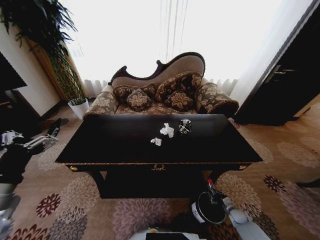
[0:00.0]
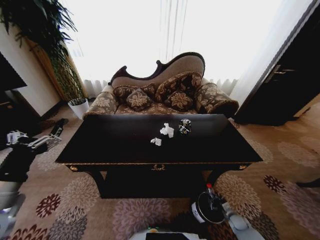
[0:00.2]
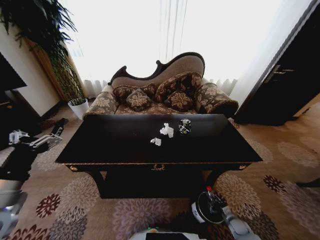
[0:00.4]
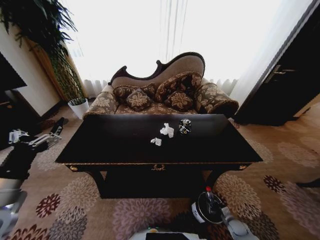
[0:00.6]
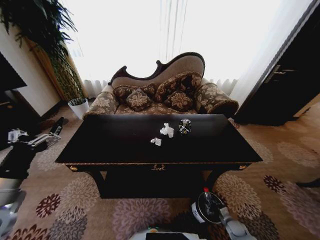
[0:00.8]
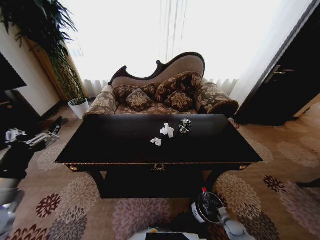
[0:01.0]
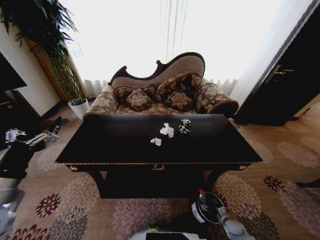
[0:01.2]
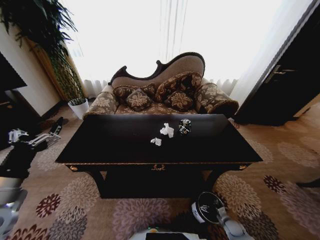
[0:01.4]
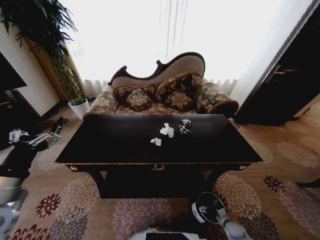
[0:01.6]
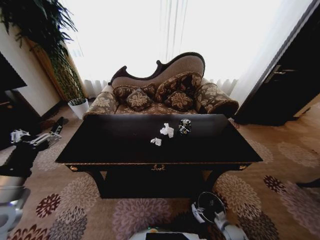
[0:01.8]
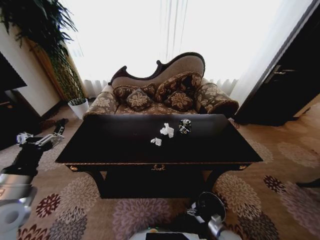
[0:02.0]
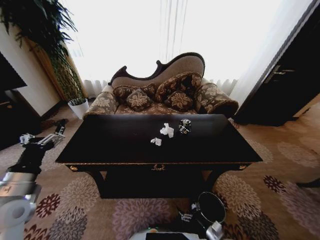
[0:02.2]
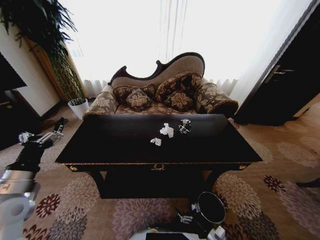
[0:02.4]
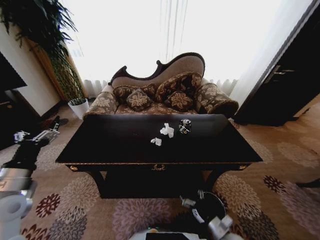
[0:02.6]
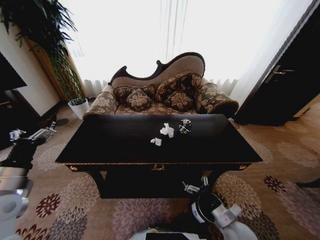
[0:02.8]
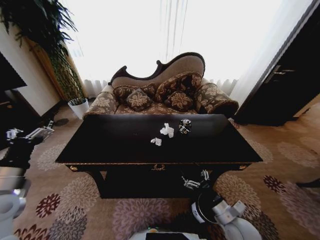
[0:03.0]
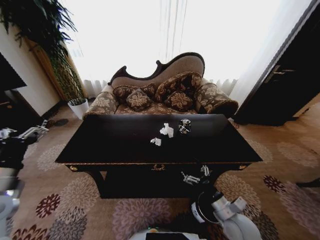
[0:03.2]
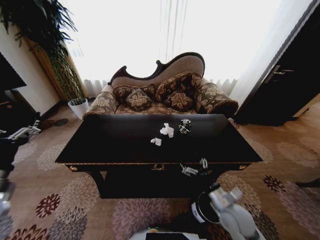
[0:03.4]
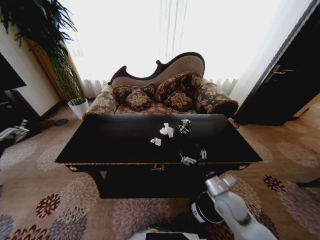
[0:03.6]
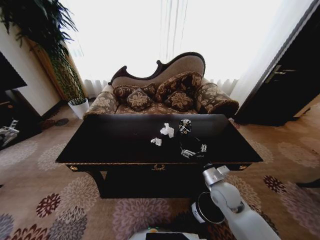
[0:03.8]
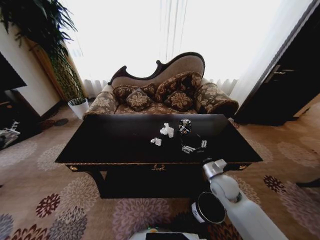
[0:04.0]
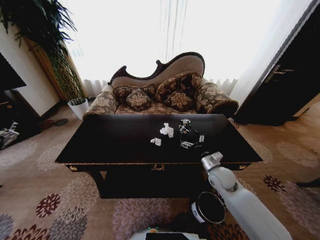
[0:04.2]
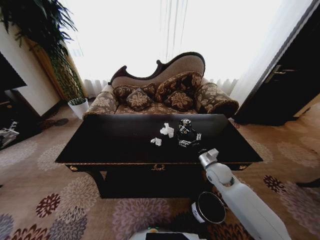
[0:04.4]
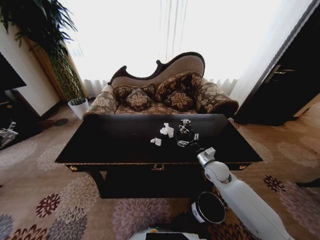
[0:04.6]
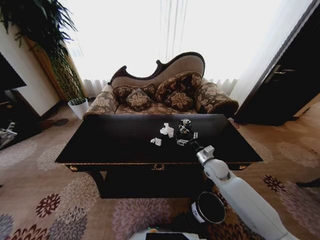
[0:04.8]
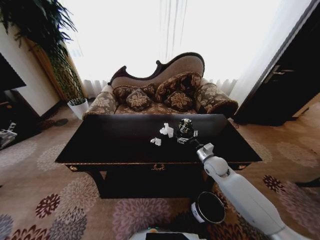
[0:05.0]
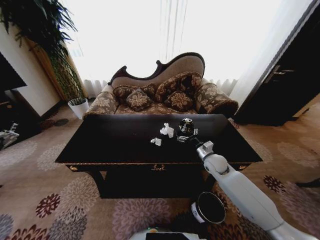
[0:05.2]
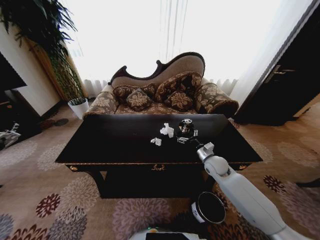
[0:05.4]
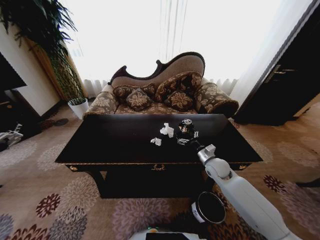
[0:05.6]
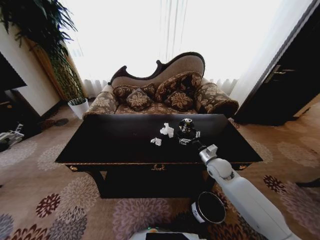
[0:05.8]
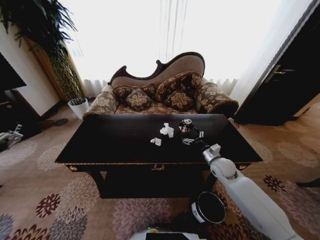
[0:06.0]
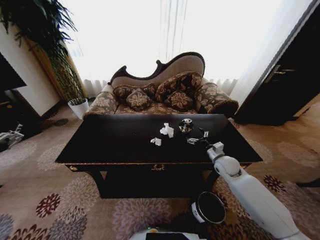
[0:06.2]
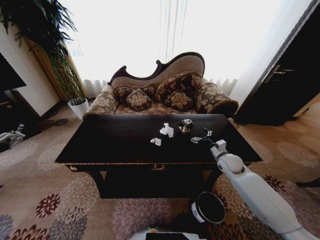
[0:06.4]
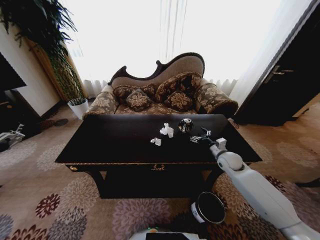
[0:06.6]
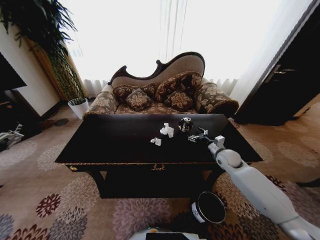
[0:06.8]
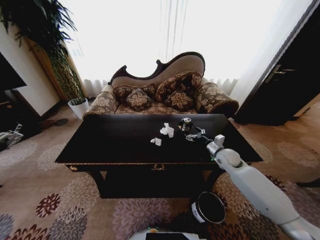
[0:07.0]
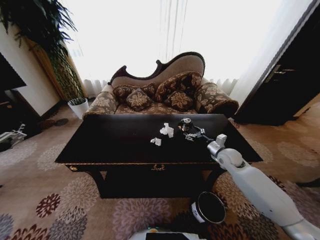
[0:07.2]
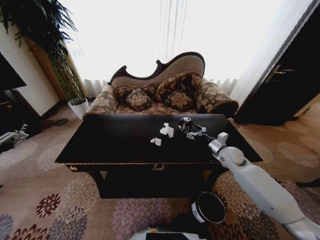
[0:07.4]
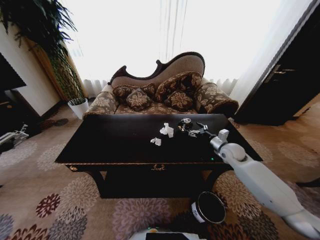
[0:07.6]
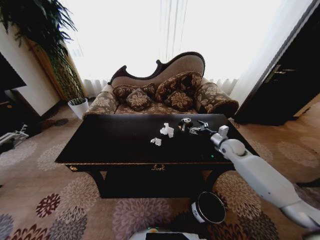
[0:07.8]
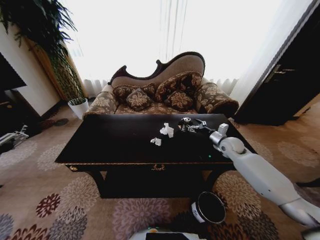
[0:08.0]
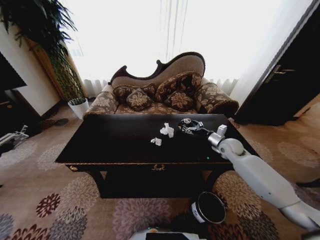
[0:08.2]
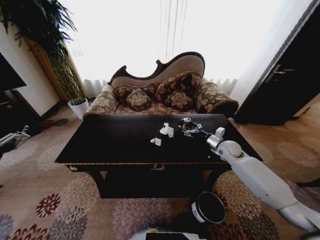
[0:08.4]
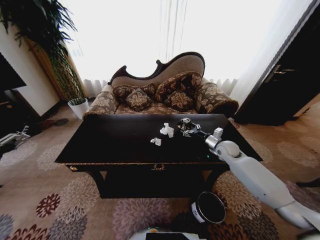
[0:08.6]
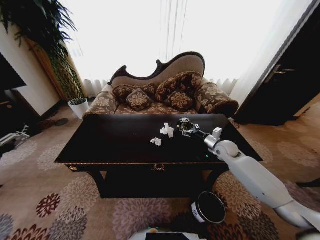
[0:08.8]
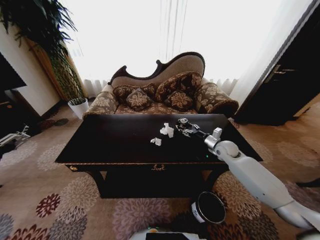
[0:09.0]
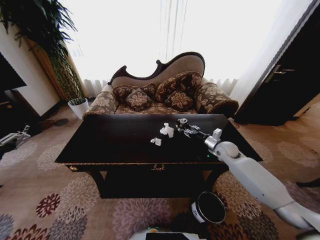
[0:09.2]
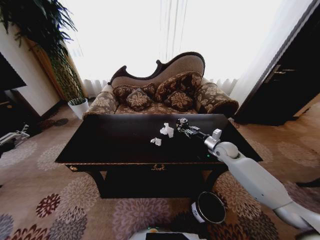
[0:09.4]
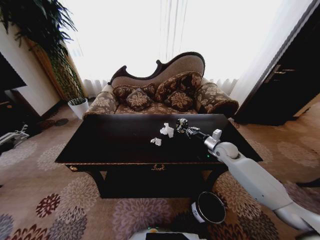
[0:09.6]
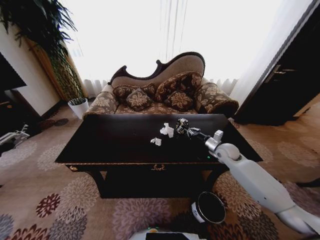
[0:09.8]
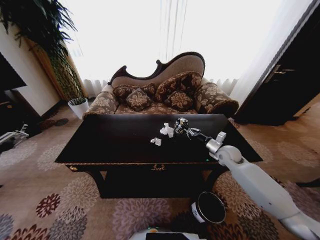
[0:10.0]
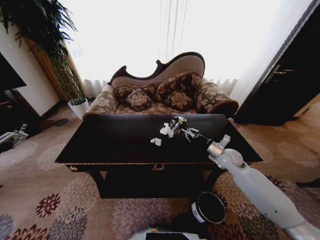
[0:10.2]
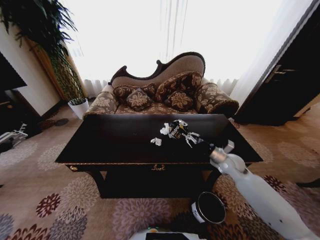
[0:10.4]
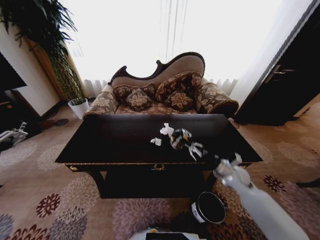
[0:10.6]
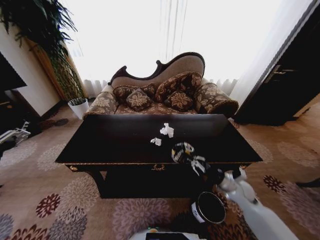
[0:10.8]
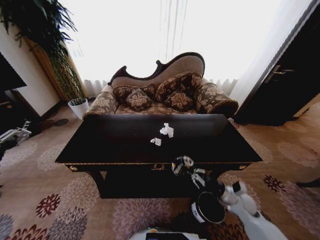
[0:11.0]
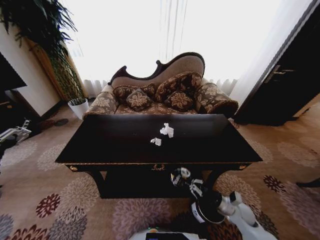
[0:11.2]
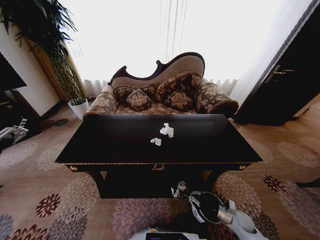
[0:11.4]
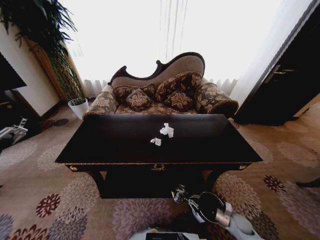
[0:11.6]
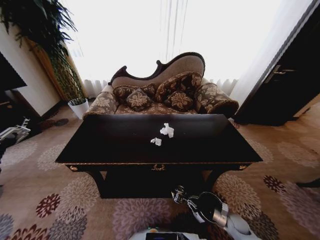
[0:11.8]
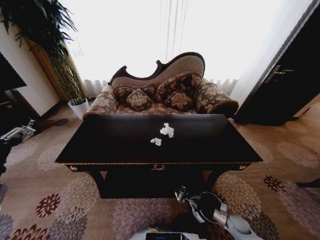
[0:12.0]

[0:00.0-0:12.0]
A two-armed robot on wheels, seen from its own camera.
Task of the whole recording: Move to the front of the table and place the trash on the table into the trash bin.
0:00.0 to 0:01.6: The right gripper travels backward by approximately 5 cm, and opens.
0:01.6 to 0:03.0: The right gripper heads upward and to the left, covering approximately 30 cm.
0:03.0 to 0:04.4: The left gripper shifts roughly 5 cm backward. The right gripper is displaced forward by approximately 20 cm.
0:04.4 to 0:06.0: There are only small adjustments of the grippers.
0:06.0 to 0:07.6: The right gripper travels forward and to the right by some 10 cm.
0:07.6 to 0:09.0: The grippers make only small movements.
0:09.0 to 0:10.4: The right gripper travels backward by approximately 5 cm, and closes its fingers.
0:10.4 to 0:12.0: The right gripper goes approximately 35 cm downward and backward.

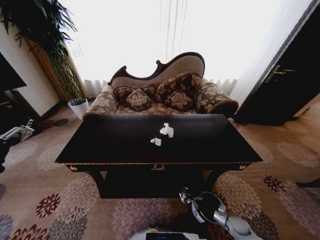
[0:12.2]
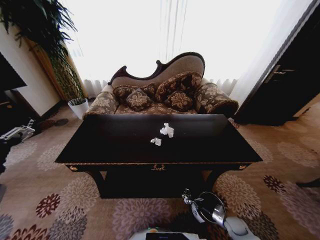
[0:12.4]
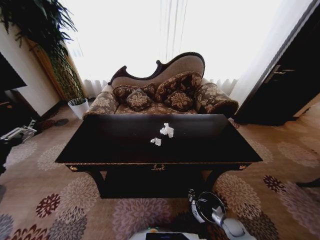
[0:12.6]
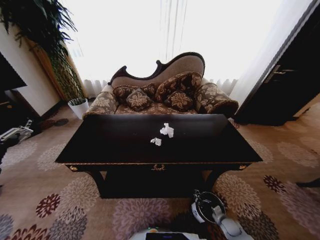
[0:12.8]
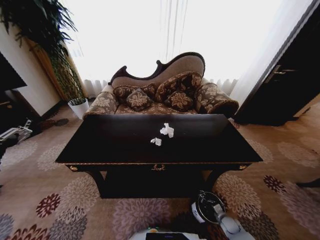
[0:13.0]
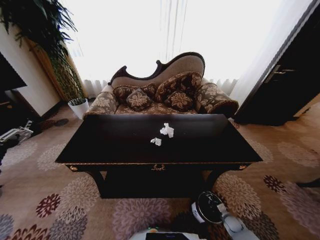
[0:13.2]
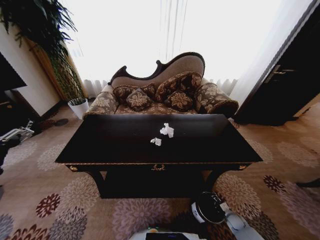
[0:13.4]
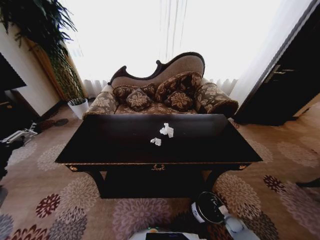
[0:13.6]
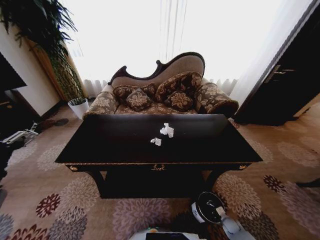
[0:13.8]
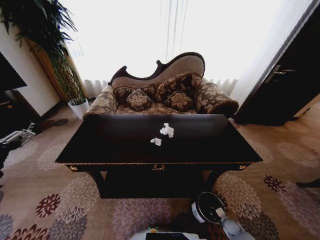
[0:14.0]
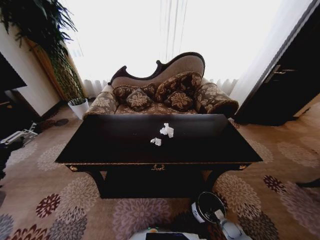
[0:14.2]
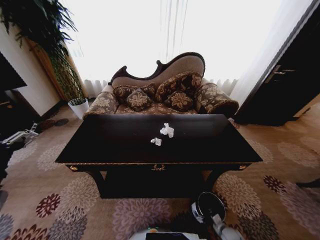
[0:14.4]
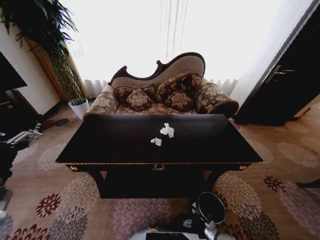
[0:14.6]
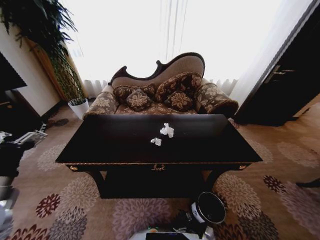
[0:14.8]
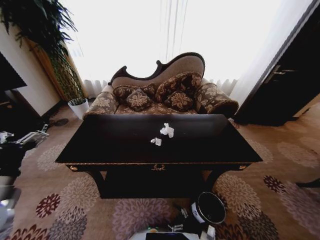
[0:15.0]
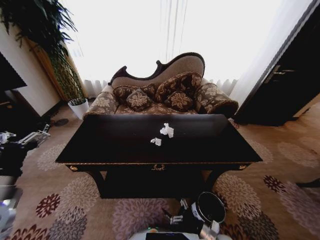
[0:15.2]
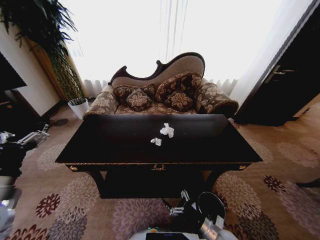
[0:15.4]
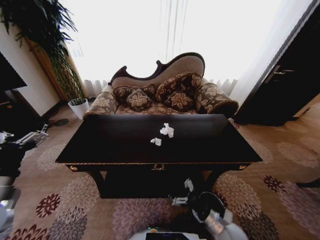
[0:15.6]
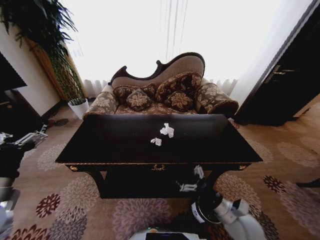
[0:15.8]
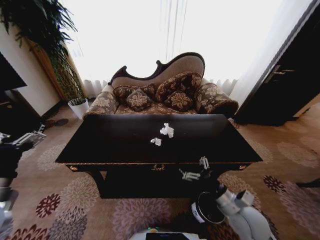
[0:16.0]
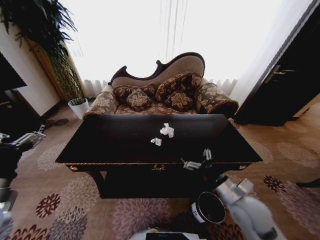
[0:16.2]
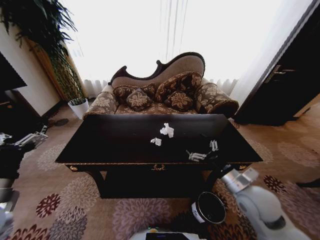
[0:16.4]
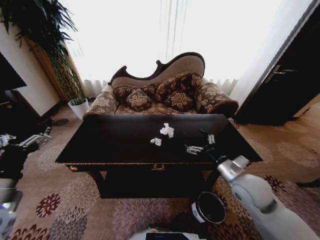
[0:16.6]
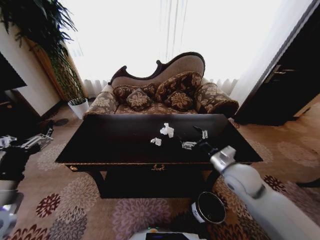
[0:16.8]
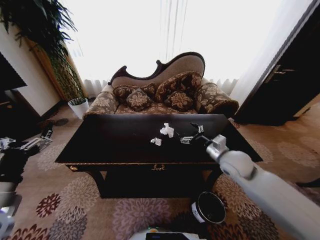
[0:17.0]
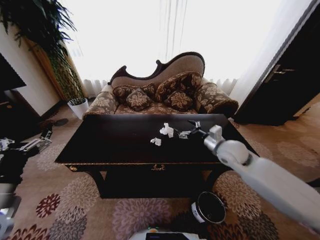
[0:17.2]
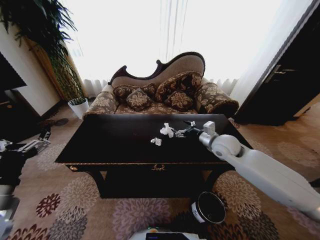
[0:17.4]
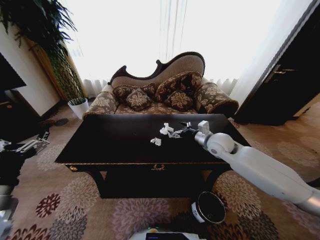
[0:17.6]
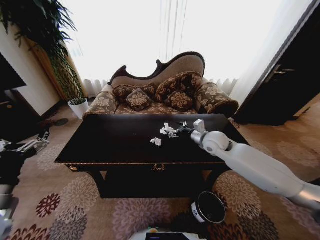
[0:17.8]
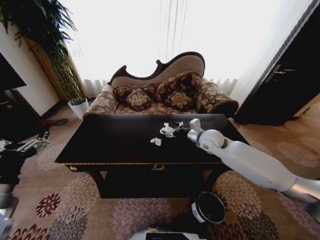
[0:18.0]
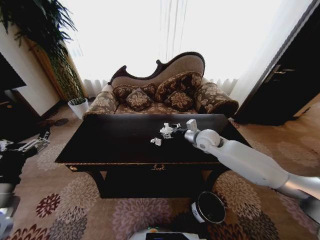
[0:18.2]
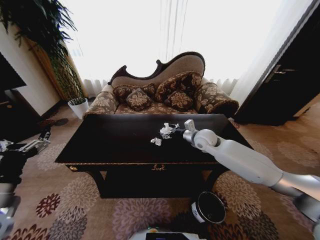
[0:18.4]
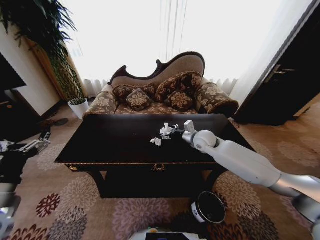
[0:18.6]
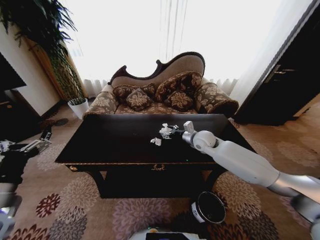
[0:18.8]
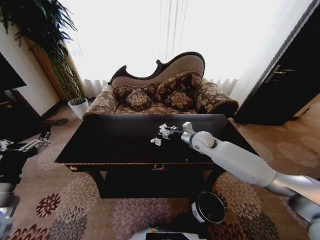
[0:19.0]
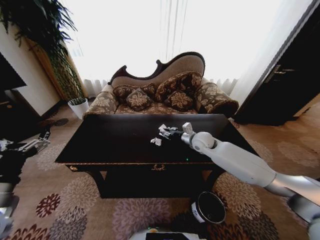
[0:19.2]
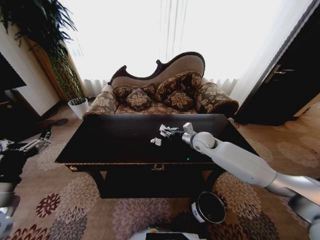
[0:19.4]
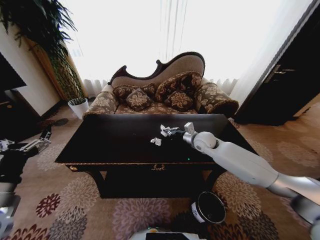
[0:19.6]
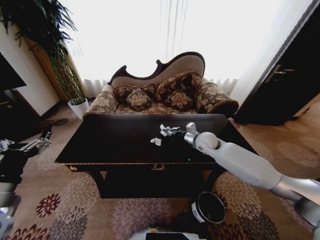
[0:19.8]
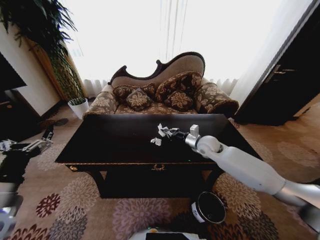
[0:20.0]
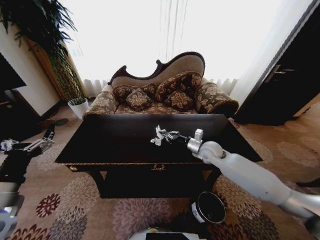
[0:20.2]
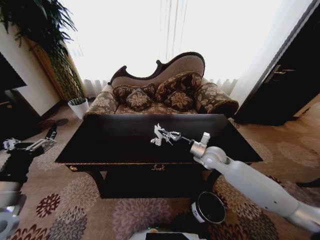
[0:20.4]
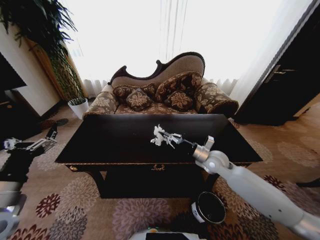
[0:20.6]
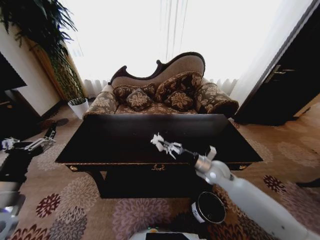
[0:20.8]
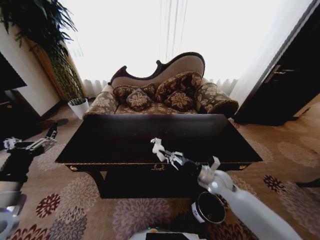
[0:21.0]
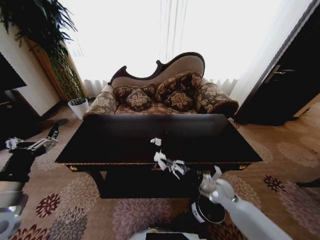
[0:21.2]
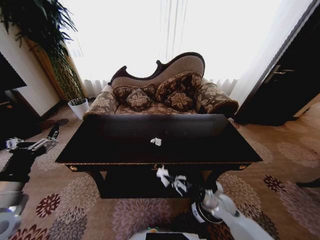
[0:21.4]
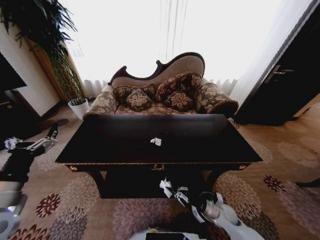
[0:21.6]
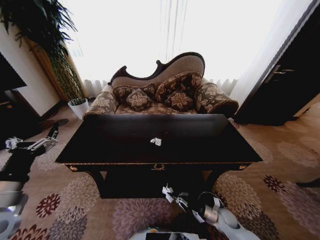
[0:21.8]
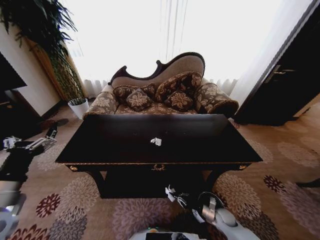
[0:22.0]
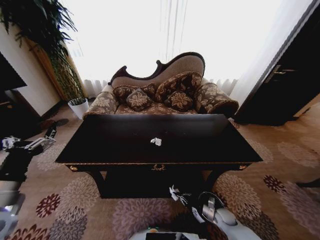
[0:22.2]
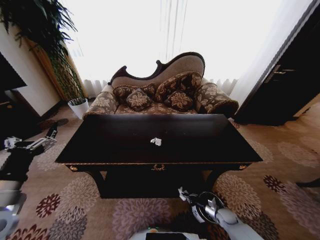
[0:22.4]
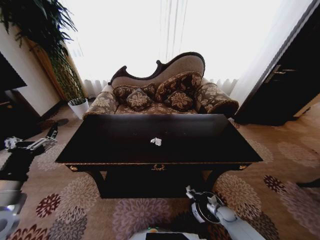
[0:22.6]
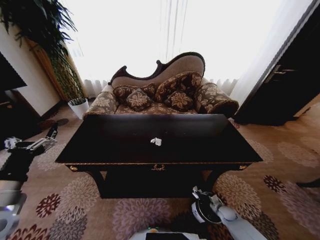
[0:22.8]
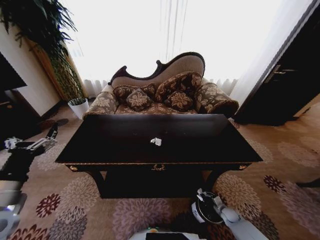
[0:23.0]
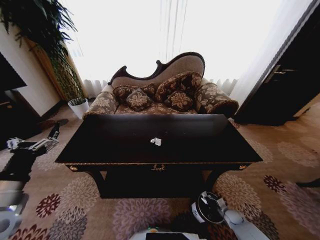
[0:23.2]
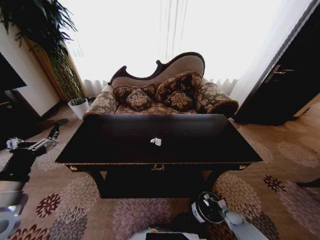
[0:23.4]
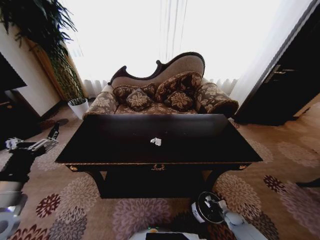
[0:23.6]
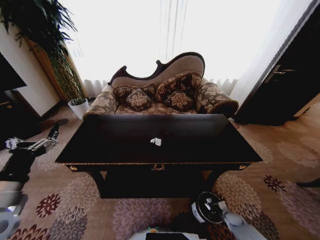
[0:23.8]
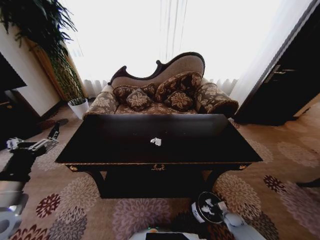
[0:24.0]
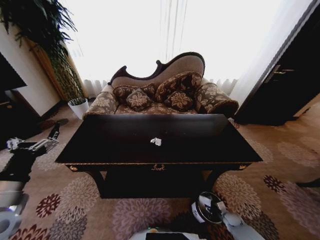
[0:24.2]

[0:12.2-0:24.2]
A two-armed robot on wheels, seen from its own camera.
Task of the whole recording: Move to the front of the table and place the trash on the table into the trash bin.
0:12.2 to 0:13.8: The right gripper goes about 10 cm downward.
0:13.8 to 0:15.2: The right gripper shifts approximately 20 cm to the left, upward and backward, and opens.
0:15.2 to 0:16.6: The right gripper heads upward and forward, covering roughly 30 cm.
0:16.6 to 0:18.2: The right gripper shifts roughly 20 cm forward.
0:18.2 to 0:19.8: The right gripper closes up.
0:19.8 to 0:21.2: The right gripper moves backward and downward, some 25 cm.
0:21.2 to 0:22.6: The right gripper is displaced downward and to the right by roughly 25 cm.
0:22.6 to 0:24.2: The right gripper ends up about 5 cm from where it was, and opens its fingers.
